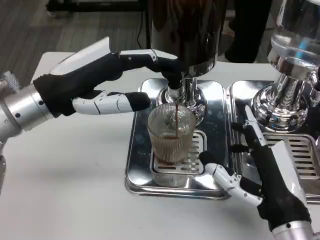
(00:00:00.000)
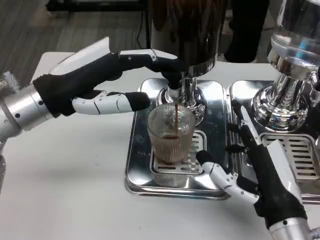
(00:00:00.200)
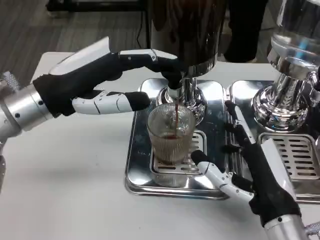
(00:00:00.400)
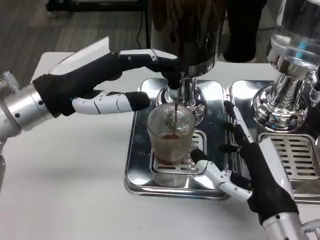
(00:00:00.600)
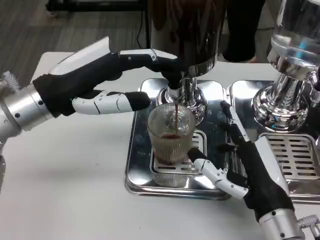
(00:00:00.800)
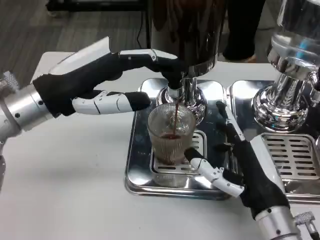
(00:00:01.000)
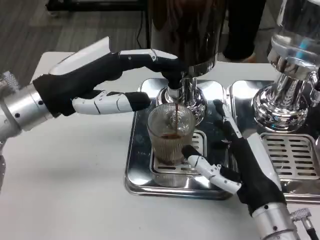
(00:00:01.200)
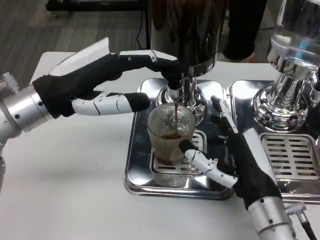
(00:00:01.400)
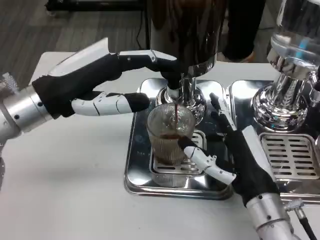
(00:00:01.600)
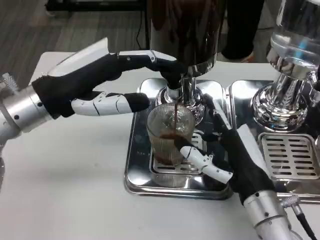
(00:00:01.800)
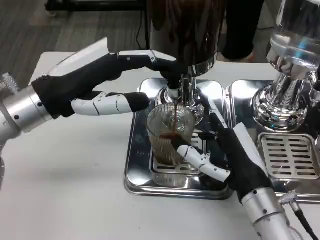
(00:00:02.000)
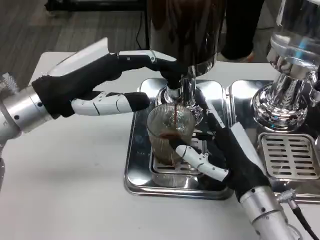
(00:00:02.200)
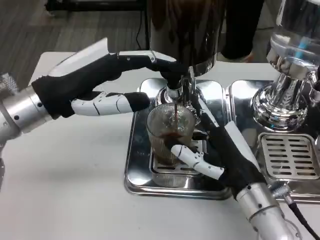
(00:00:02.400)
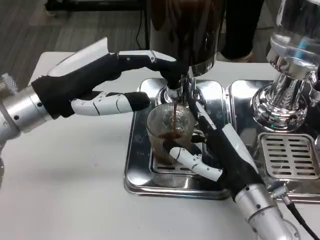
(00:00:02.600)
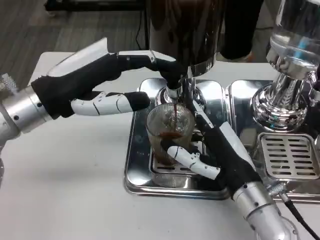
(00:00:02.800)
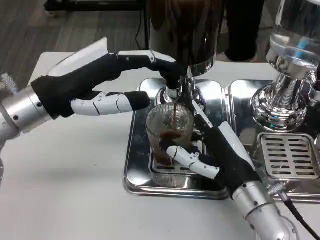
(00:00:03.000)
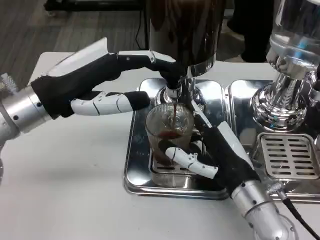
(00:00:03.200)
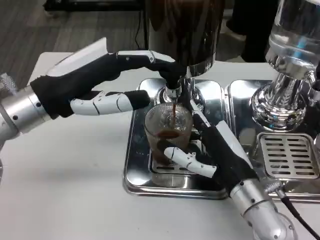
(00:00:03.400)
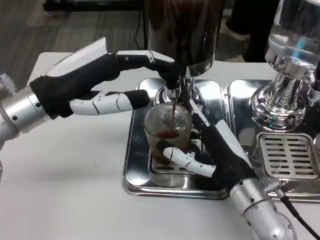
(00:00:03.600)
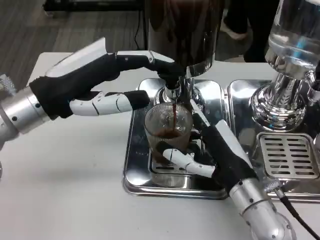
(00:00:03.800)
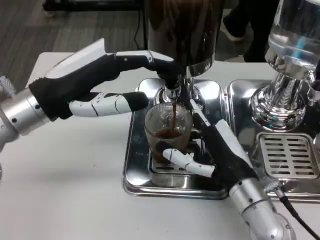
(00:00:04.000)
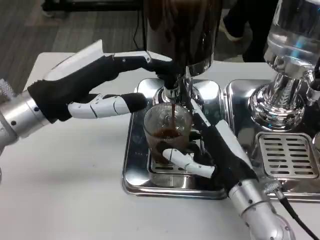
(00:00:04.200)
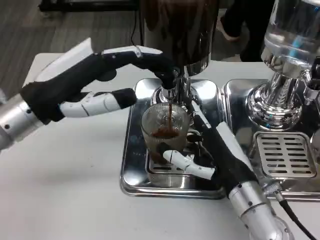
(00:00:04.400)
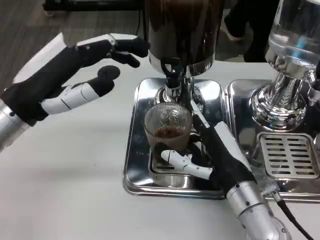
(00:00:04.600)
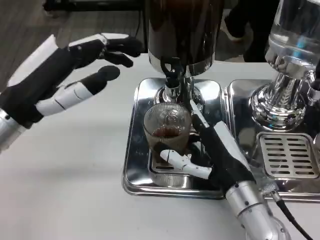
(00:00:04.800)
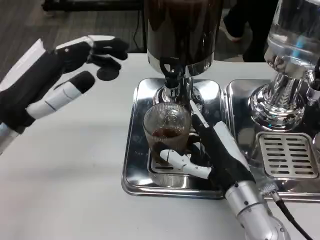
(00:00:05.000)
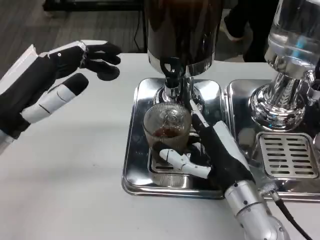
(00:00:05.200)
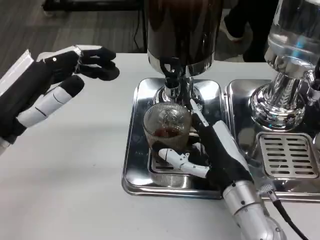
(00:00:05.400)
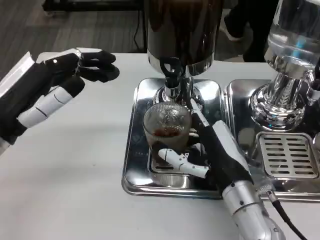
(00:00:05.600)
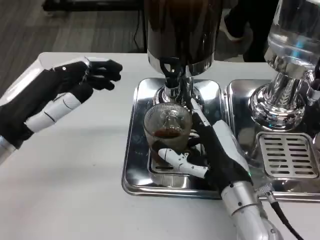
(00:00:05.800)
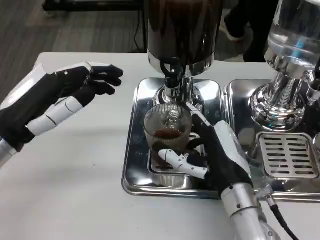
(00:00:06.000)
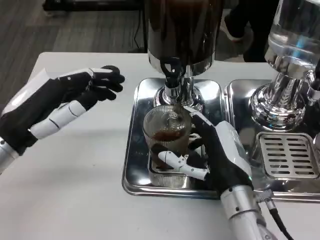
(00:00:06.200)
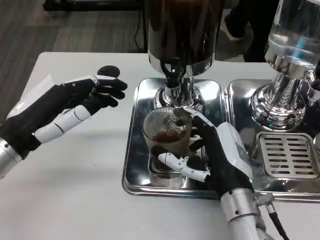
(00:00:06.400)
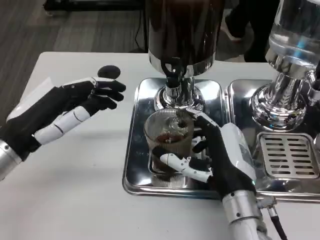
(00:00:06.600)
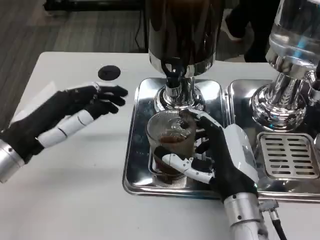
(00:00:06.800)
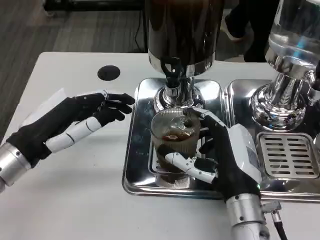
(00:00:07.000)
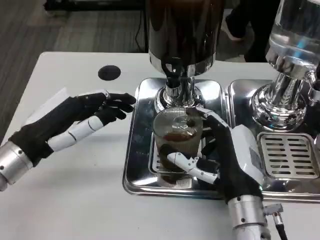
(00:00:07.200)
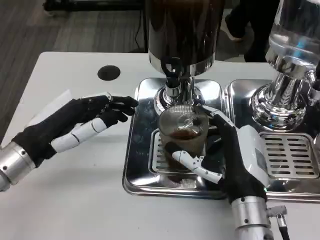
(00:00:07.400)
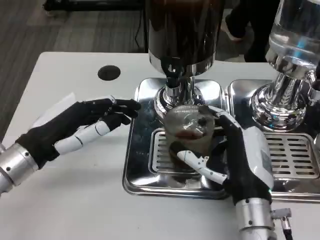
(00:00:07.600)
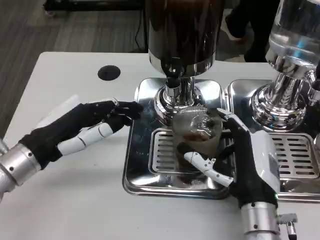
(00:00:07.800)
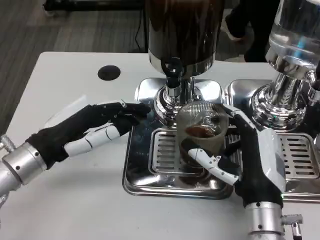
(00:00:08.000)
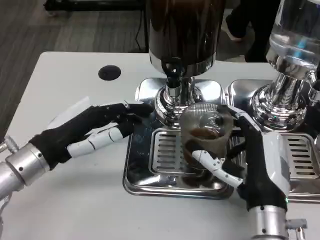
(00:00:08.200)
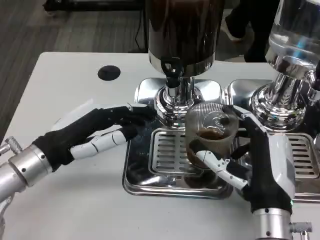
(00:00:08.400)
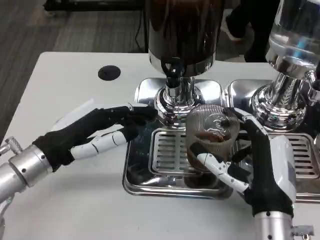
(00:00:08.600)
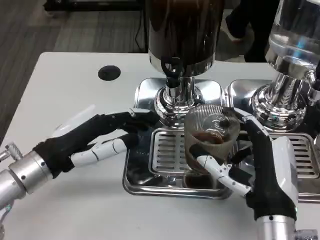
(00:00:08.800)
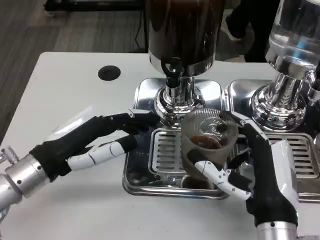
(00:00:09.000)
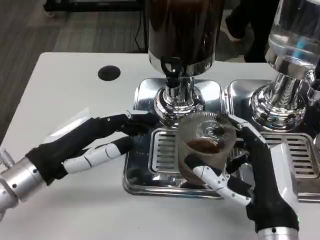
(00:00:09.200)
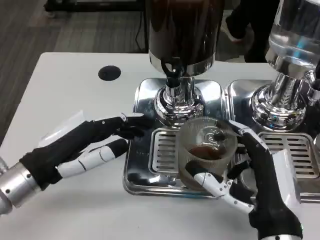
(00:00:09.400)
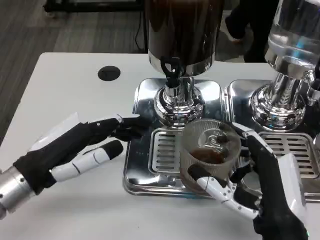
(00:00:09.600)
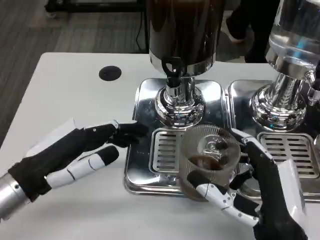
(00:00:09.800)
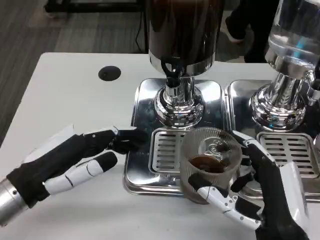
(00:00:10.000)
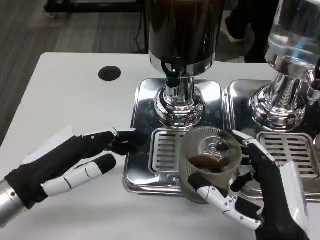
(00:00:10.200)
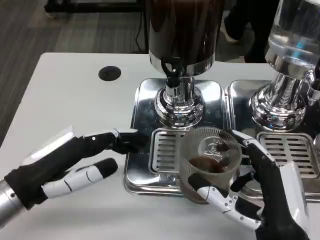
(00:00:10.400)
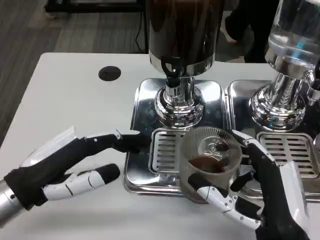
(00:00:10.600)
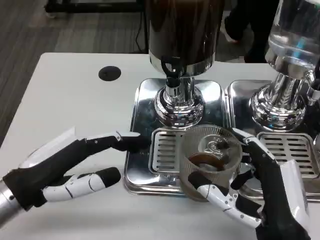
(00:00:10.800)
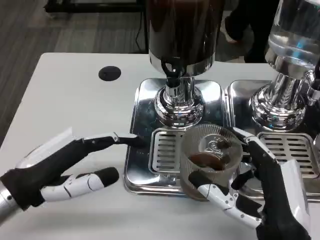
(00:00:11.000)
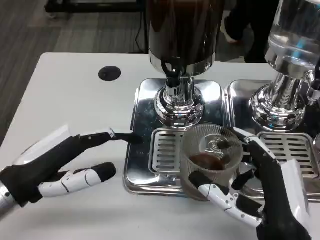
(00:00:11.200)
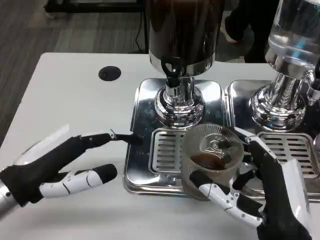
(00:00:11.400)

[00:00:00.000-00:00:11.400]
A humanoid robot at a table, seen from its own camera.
Task of the whole recording: Grasp the cup under the faucet to collect the drink, then remove the cup.
00:00:00.000 to 00:00:01.400: The hands move only a little.
00:00:01.400 to 00:00:02.800: The hands move only a little.
00:00:04.200 to 00:00:05.600: The left hand ends up roughly 5 cm from where it was.
00:00:08.600 to 00:00:10.000: Both hands move backward, about 5 cm.
00:00:10.000 to 00:00:11.400: There are only small adjustments of the hands.
